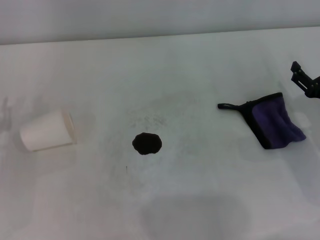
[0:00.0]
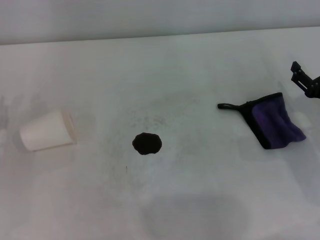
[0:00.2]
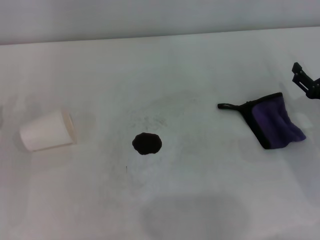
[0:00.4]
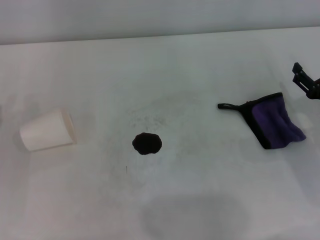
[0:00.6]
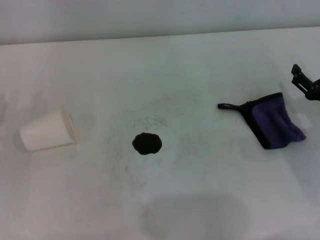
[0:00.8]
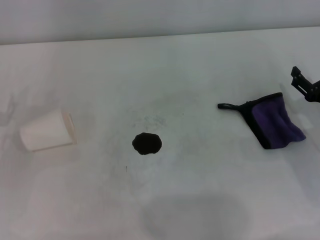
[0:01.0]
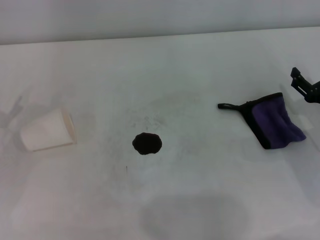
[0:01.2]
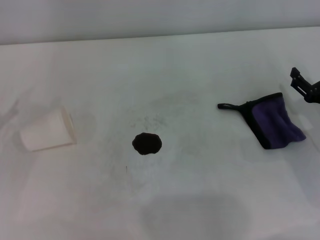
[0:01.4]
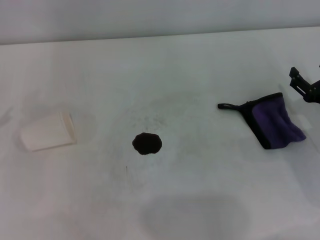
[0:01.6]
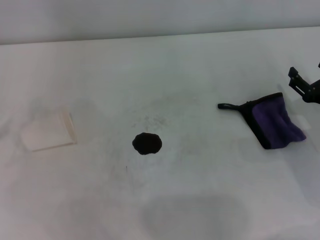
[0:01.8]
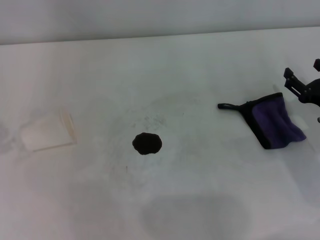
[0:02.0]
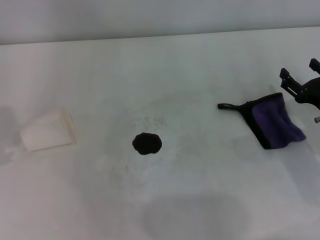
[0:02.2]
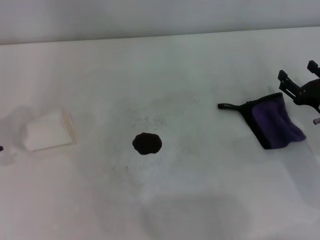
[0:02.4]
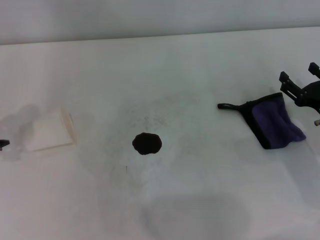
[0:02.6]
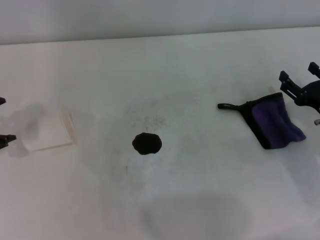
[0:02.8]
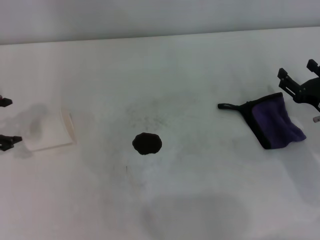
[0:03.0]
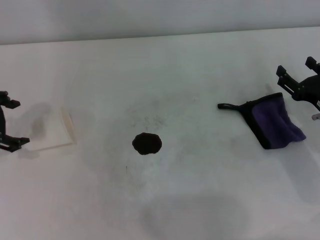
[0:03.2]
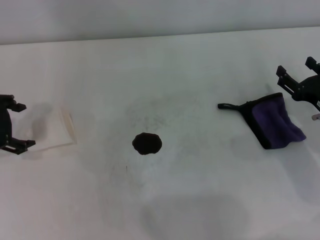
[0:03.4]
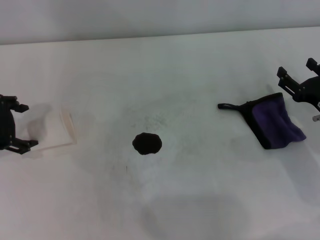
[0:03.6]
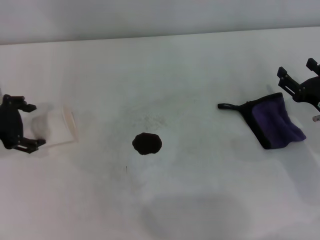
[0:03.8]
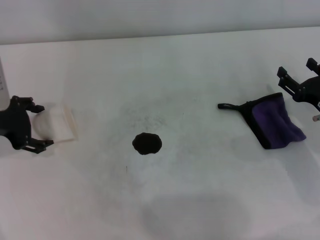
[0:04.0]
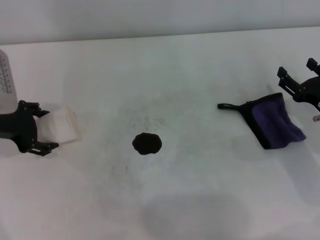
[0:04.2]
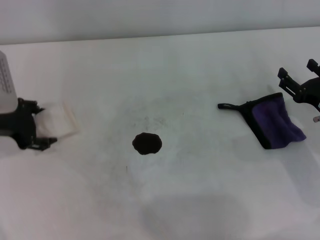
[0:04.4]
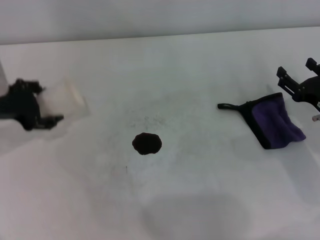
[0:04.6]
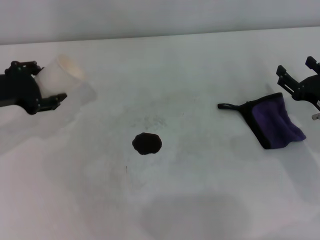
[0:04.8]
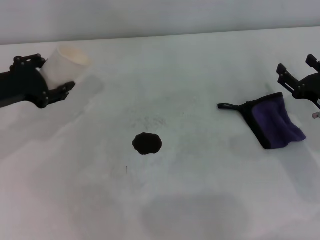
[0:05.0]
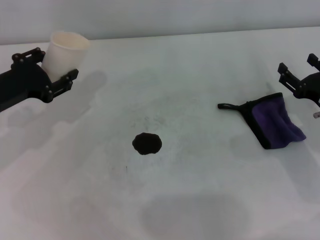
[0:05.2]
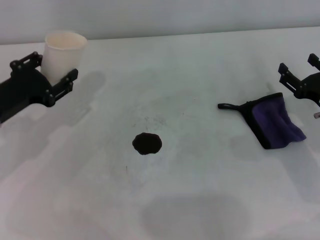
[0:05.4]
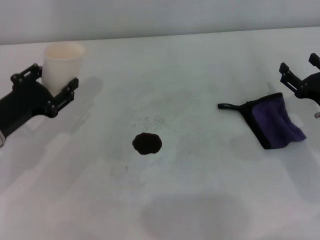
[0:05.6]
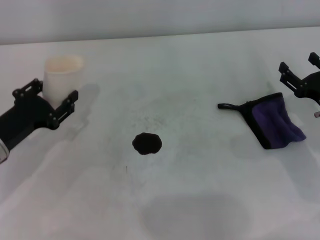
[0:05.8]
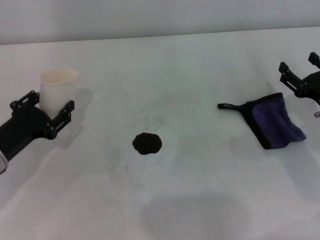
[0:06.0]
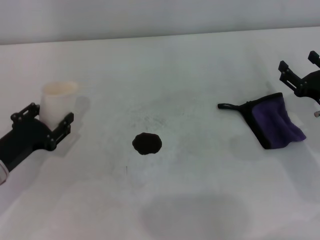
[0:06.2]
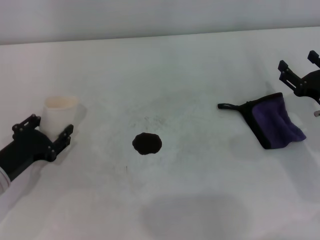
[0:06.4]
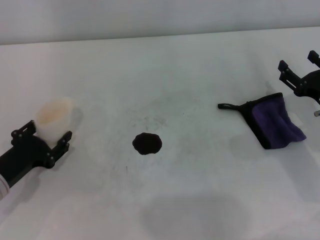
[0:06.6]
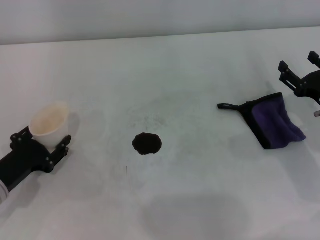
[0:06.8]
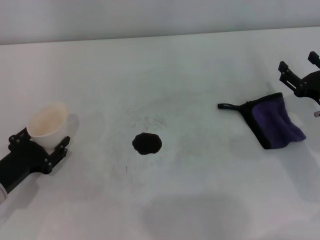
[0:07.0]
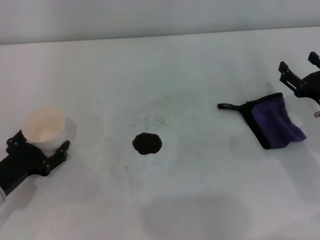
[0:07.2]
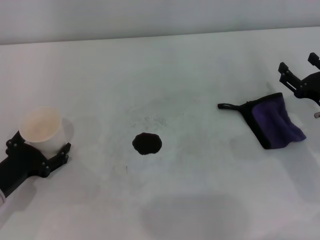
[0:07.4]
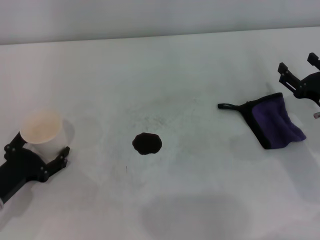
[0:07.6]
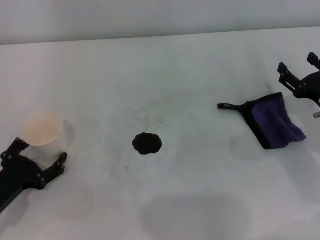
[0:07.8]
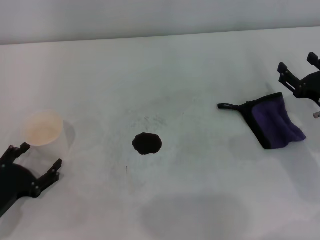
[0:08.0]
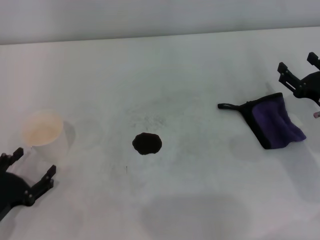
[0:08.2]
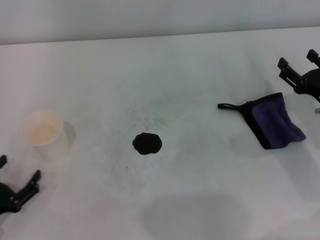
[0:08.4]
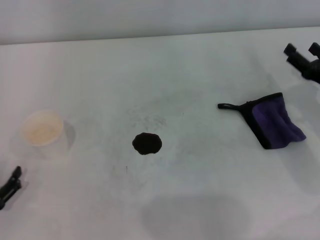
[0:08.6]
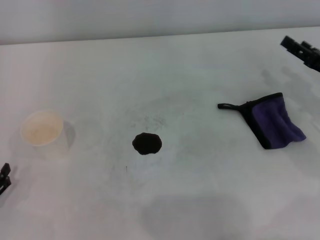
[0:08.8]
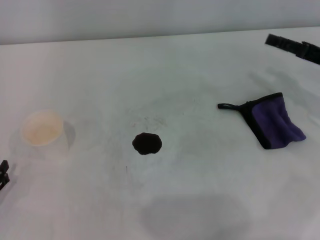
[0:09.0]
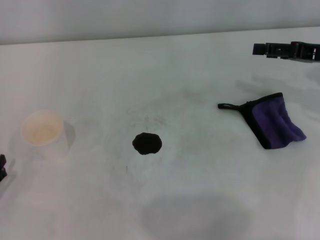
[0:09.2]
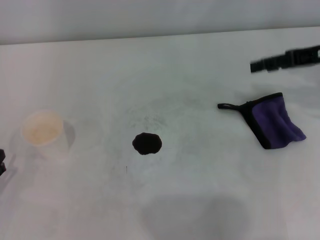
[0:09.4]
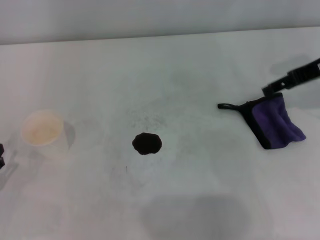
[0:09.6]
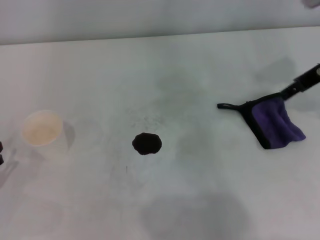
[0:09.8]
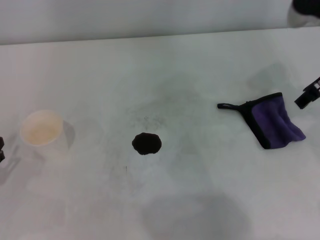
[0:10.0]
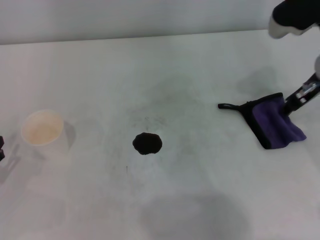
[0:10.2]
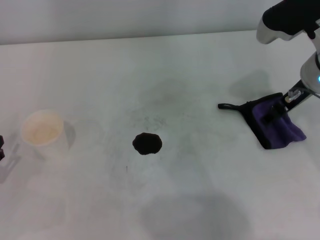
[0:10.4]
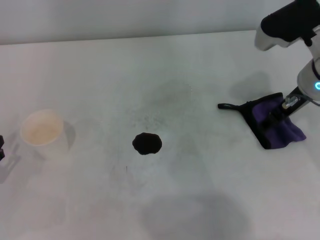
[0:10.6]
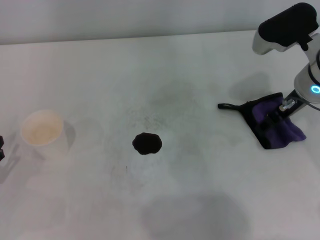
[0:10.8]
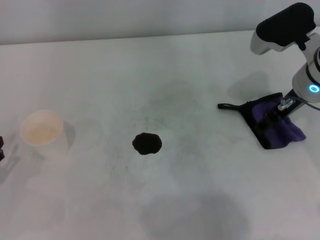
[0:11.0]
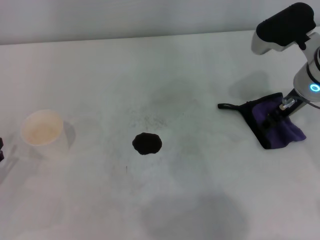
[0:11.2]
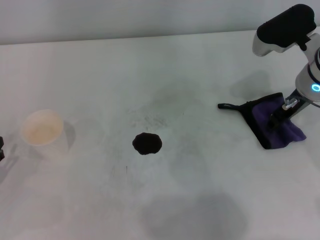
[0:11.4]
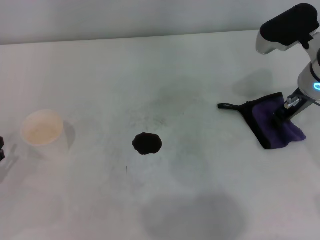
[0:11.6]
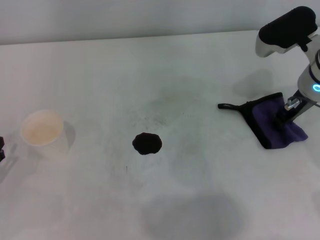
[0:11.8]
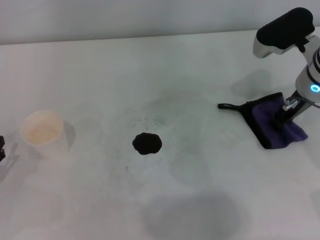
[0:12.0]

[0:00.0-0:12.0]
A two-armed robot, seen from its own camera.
Step, 0:00.0 to 0:04.2: Grasp the paper cup with the left gripper.
Step, 0:04.4 to 0:07.4: Stand the paper cup upright with the left gripper.
0:03.0 to 0:04.4: The left gripper heads downward, covering approximately 5 cm.
0:04.4 to 0:06.0: The left gripper shifts some 10 cm downward and backward, and closes.
0:06.0 to 0:07.6: The left gripper ends up some 5 cm from where it was, and opens.
0:07.6 to 0:09.0: The right gripper moves upward and forward, roughly 10 cm. Meanwhile the left gripper travels backward and to the left by approximately 10 cm.
0:09.0 to 0:10.4: The right gripper shifts roughly 15 cm to the left and upward.
0:10.4 to 0:12.0: The right gripper closes its fingers.

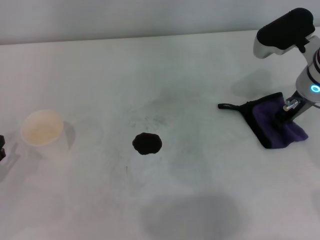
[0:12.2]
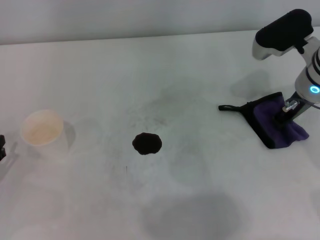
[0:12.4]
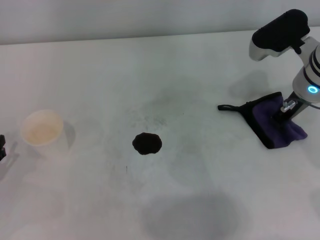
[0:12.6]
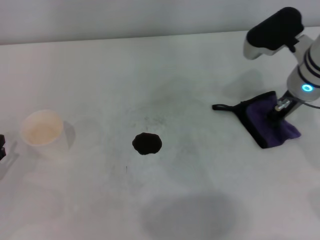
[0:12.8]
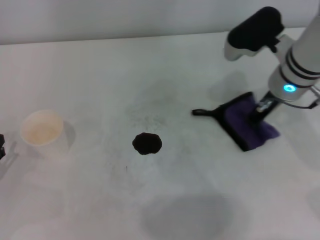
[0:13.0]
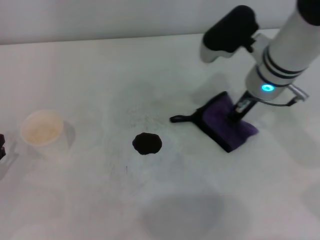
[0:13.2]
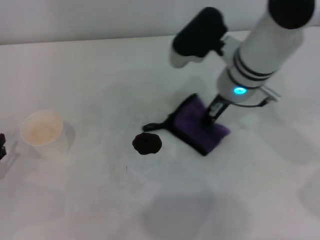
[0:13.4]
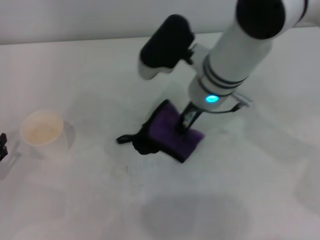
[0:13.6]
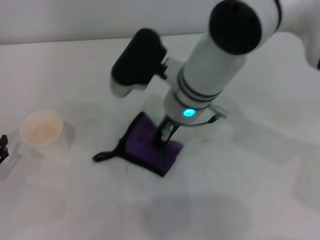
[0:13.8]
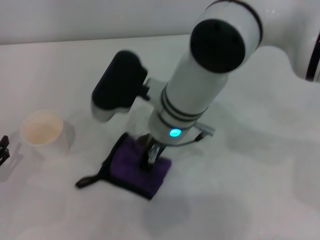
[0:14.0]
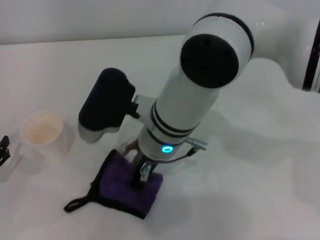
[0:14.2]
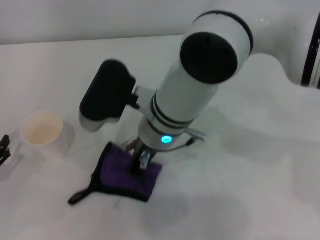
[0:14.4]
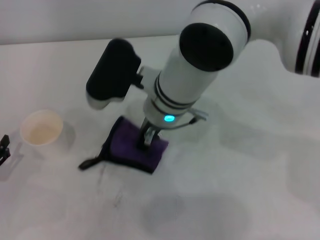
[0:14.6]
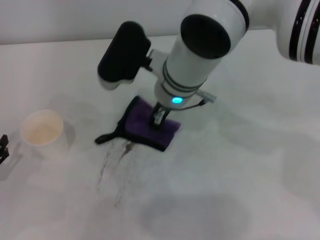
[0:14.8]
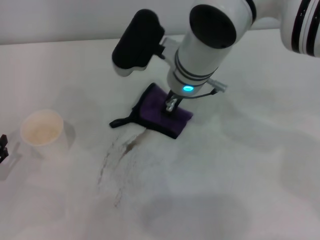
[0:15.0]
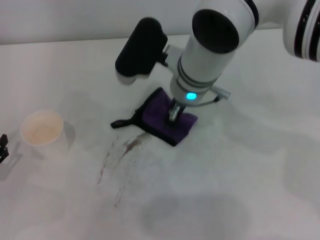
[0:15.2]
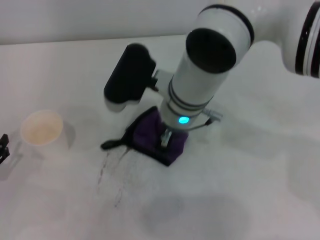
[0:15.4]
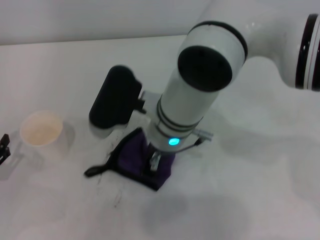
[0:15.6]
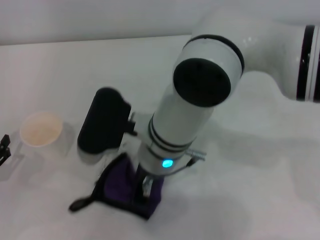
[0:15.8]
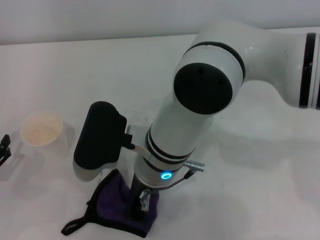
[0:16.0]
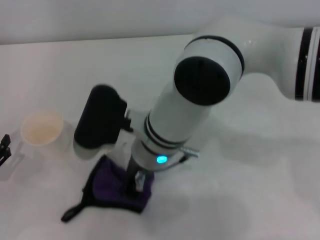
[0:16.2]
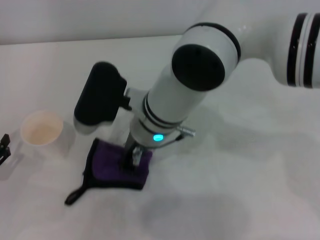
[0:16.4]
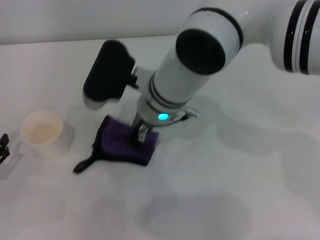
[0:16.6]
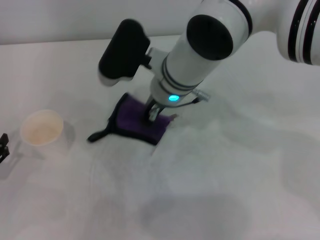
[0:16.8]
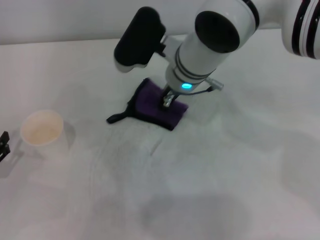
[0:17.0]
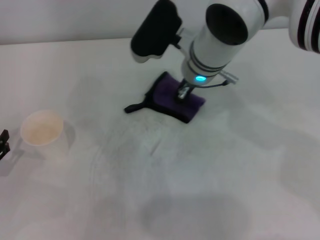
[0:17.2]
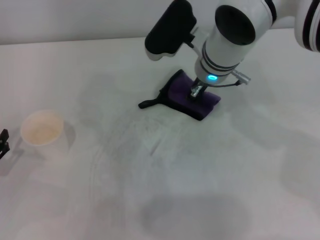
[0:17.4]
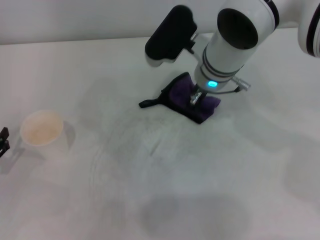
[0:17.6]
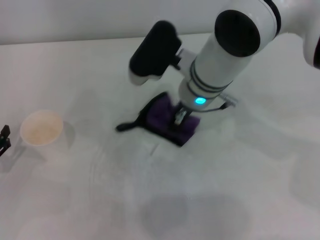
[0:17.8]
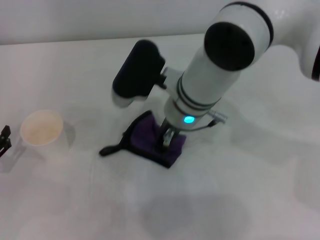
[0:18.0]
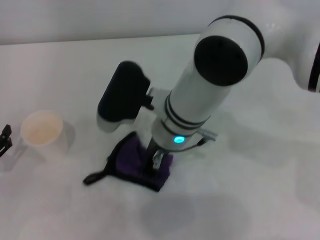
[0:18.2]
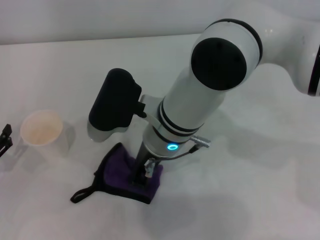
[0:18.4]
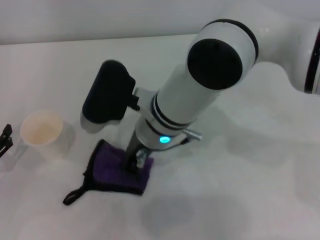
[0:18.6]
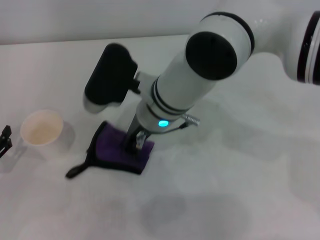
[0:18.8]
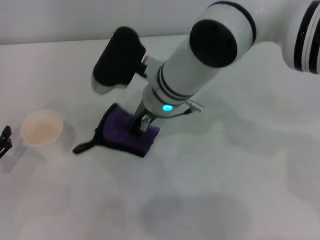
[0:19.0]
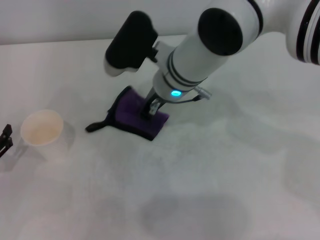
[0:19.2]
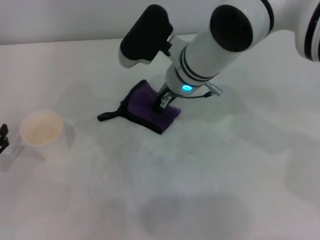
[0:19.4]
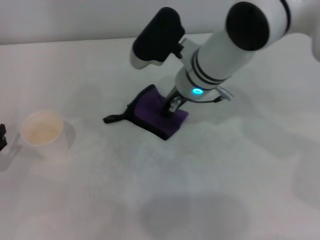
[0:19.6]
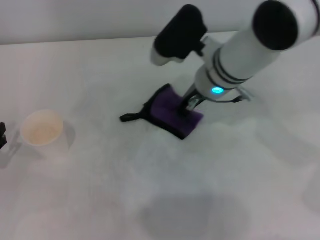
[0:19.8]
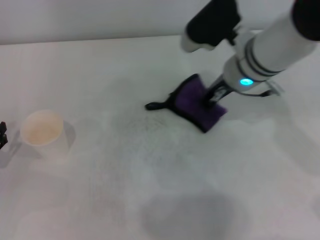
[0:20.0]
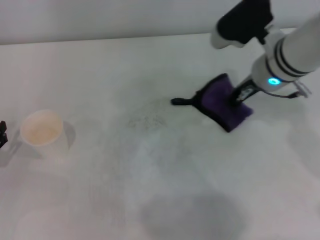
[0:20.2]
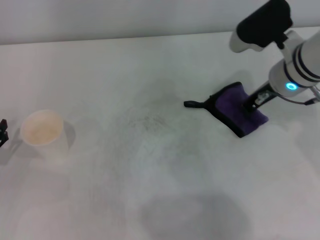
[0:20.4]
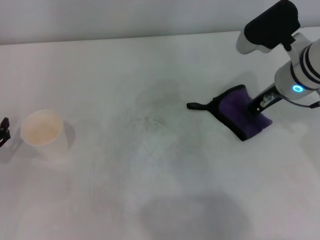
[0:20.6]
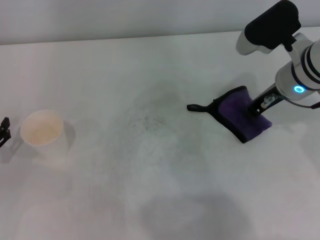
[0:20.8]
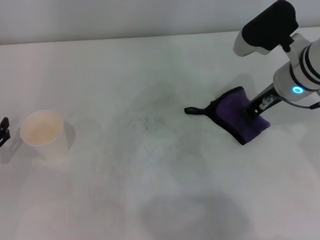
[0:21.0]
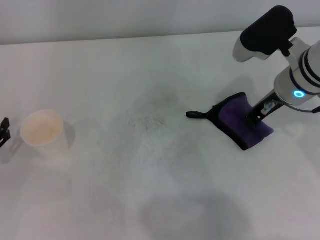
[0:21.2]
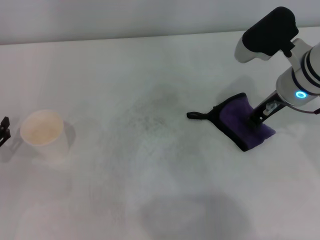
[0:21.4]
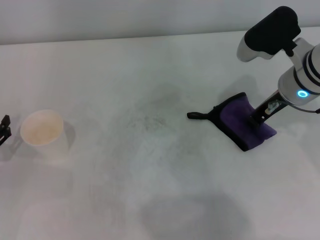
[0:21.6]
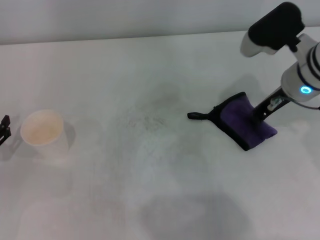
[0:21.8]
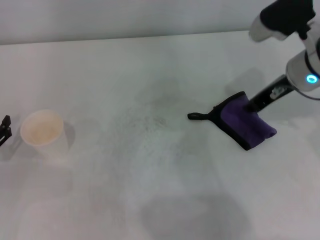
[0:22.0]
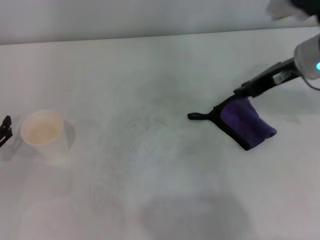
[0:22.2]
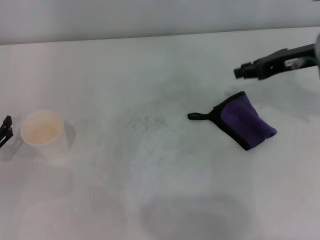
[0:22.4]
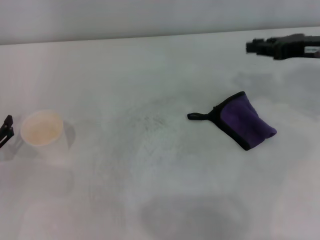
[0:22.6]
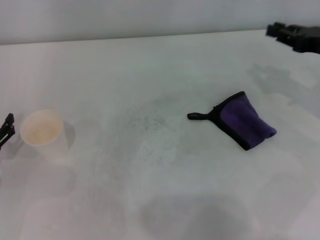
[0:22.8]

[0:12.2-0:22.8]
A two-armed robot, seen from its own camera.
Step, 0:12.8 to 0:20.8: Wipe the stains off the table with the right gripper.
Step, 0:21.0 to 0:21.6: Place the rag on the table with the right gripper.
0:12.2 to 0:13.8: The right gripper shifts about 20 cm to the left, and closes up.
0:13.8 to 0:15.2: The grippers make only small movements.
0:15.2 to 0:16.8: The right gripper moves approximately 10 cm backward and comes back.
0:16.8 to 0:18.2: The right gripper is displaced backward by approximately 5 cm.
0:18.2 to 0:19.8: The right gripper is displaced to the right and forward by approximately 10 cm.
0:19.8 to 0:21.2: The right gripper goes approximately 10 cm to the right.
0:21.2 to 0:22.8: The right gripper heads to the right, covering some 15 cm.
